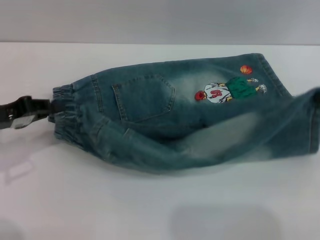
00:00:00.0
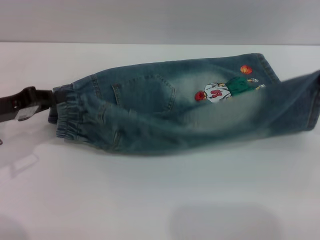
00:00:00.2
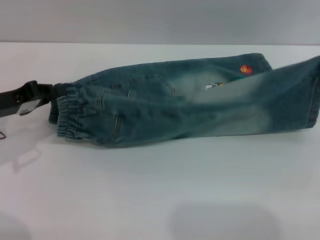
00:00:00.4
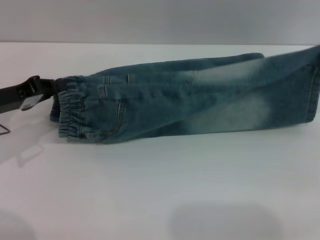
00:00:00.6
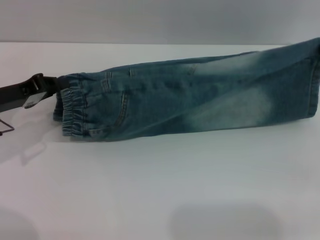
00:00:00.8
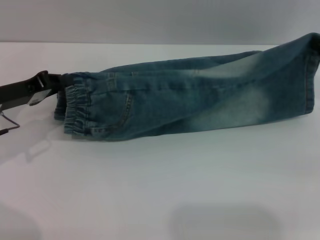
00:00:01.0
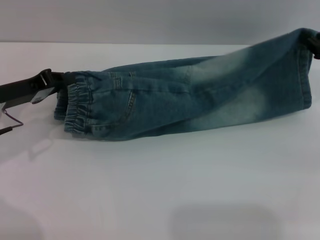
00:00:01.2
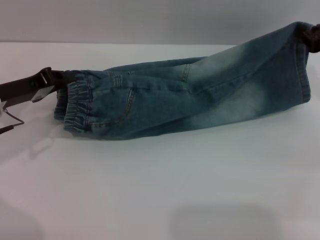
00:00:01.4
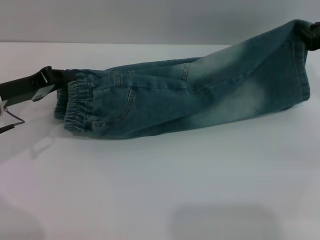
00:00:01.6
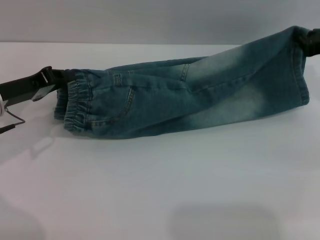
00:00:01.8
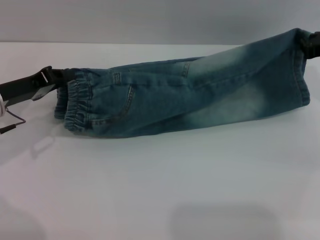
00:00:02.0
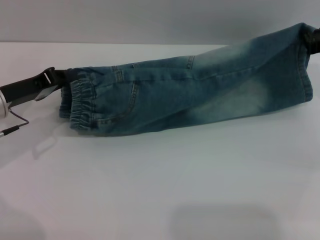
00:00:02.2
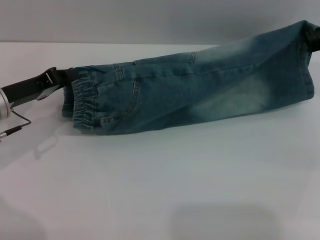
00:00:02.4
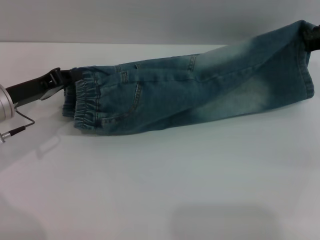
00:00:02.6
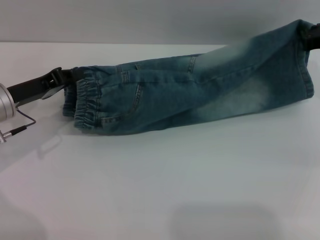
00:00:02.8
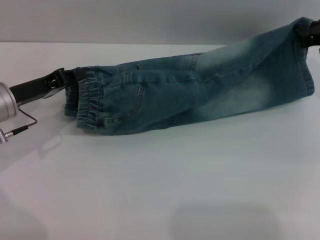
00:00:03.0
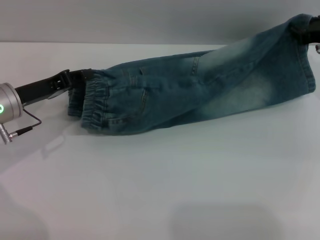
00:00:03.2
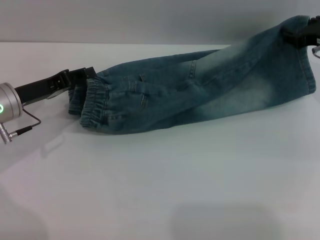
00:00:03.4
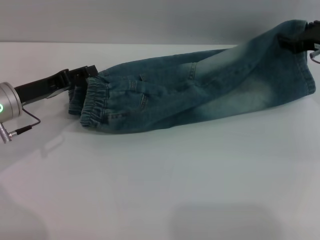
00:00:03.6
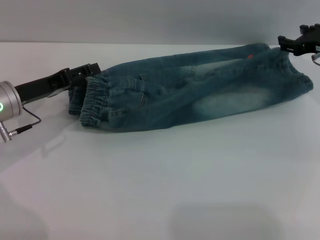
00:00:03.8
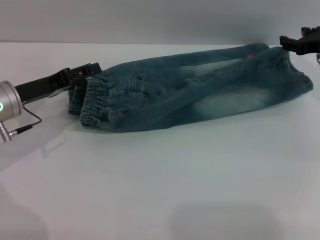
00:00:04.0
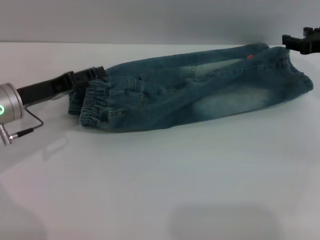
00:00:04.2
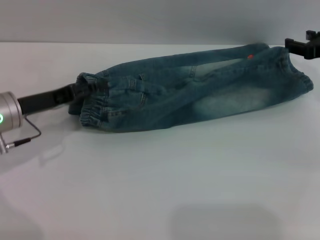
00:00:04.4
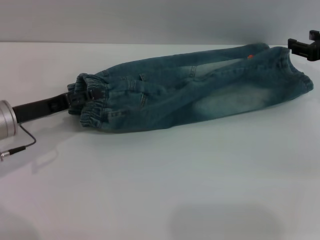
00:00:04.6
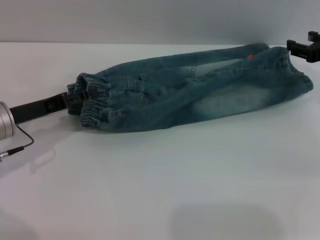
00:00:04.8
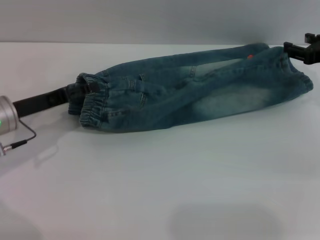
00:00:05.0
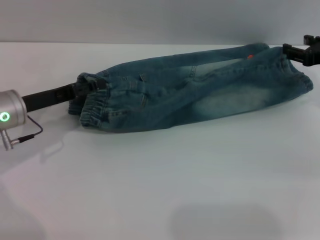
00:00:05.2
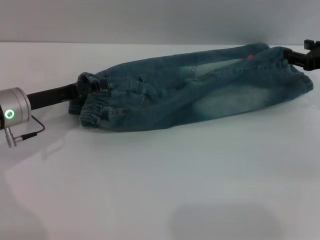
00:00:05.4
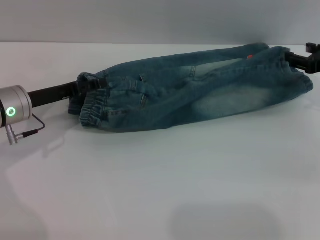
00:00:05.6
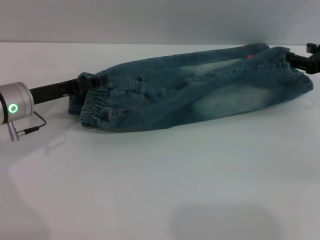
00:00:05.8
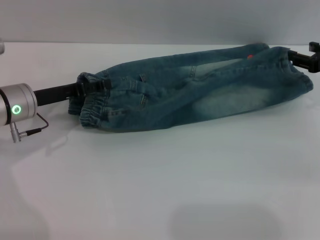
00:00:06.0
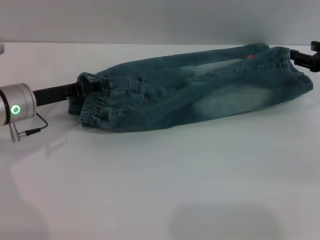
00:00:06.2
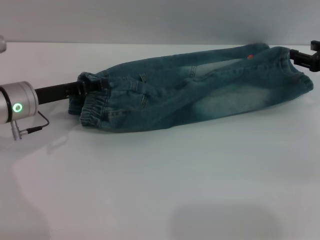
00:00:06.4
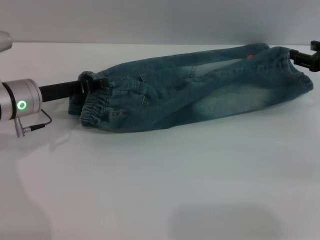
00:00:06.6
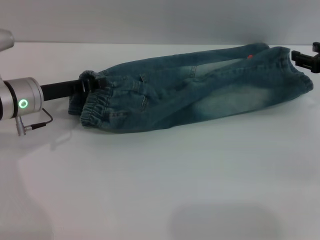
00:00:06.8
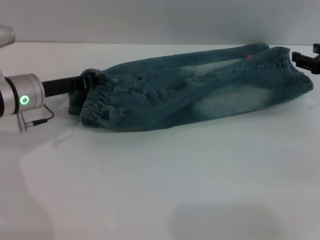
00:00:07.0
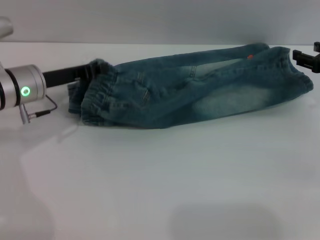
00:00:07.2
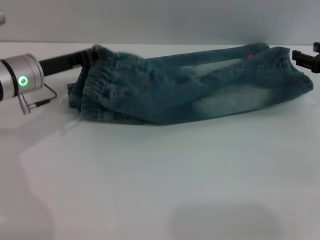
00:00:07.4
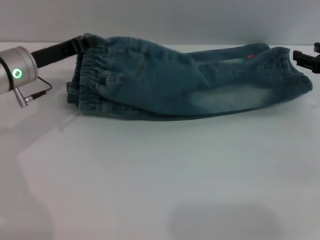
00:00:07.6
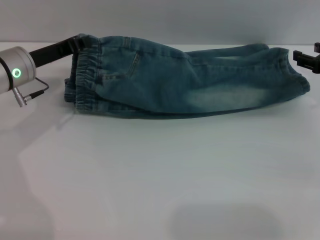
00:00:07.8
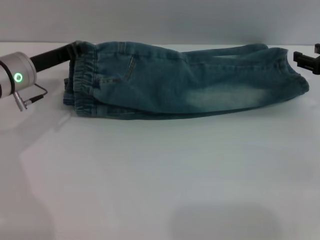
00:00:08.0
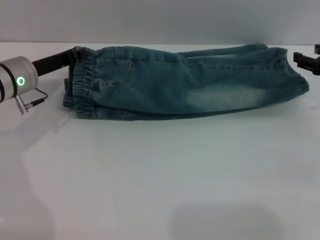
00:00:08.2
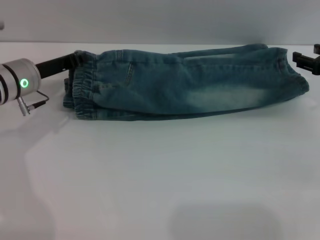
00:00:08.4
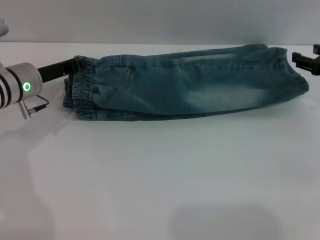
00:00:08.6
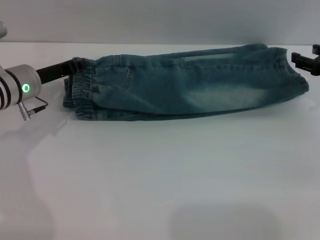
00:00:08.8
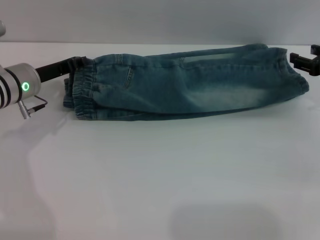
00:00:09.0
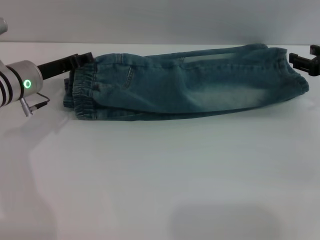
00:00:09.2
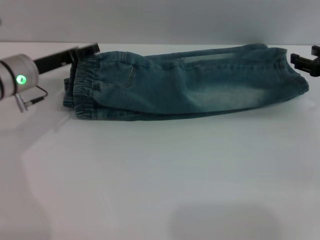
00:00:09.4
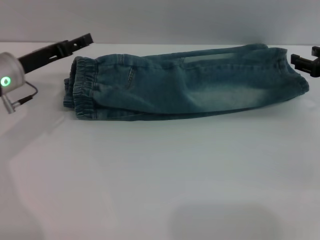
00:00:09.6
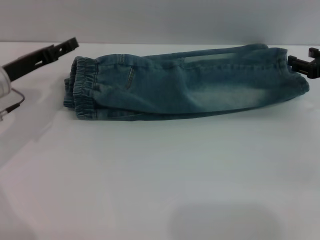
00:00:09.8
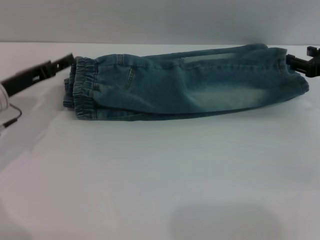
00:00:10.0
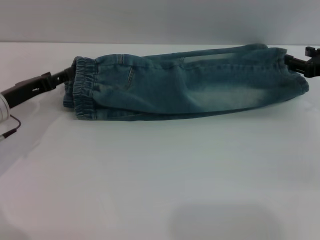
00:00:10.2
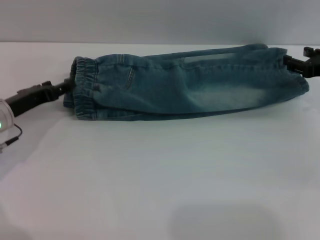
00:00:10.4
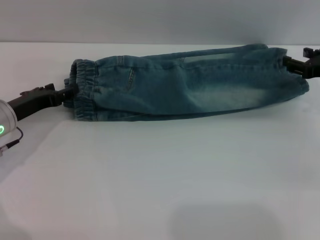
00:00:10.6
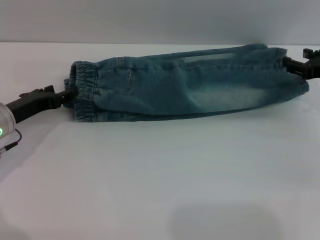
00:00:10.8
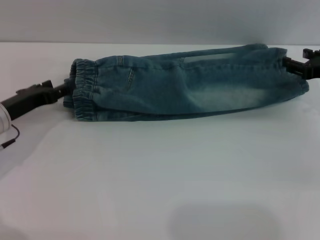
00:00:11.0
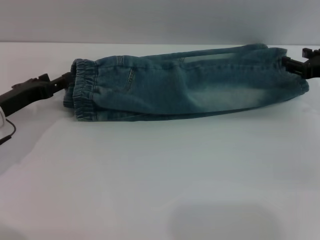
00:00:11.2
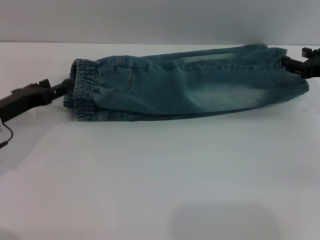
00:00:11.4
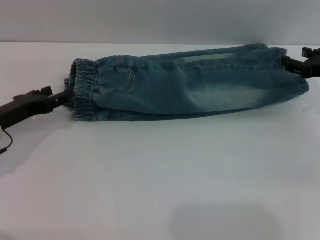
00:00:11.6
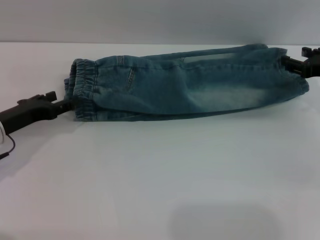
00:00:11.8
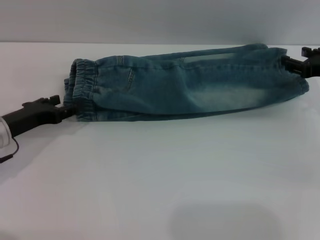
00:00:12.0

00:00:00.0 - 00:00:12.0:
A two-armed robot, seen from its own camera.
Step, 00:00:00.0 - 00:00:05.4: Fold the bottom of the pants upward with both grippers.
00:00:00.0 - 00:00:01.6: The right gripper moves forward, approximately 10 cm. The left gripper changes place by about 5 cm.
00:00:01.6 - 00:00:03.0: The grippers make only small movements.
00:00:03.0 - 00:00:04.4: The right gripper opens. Meanwhile the left gripper opens.
00:00:04.4 - 00:00:06.0: The grippers stay close to where they were, moving slightly.
00:00:06.0 - 00:00:07.6: The left gripper closes.
00:00:07.6 - 00:00:09.0: There are only small adjustments of the grippers.
00:00:09.0 - 00:00:10.4: The left gripper travels backward by about 5 cm, and opens its fingers.
00:00:10.4 - 00:00:12.0: The grippers move only a little.

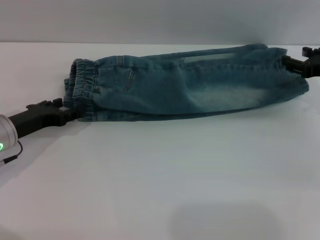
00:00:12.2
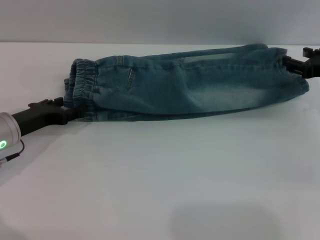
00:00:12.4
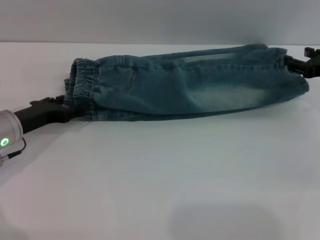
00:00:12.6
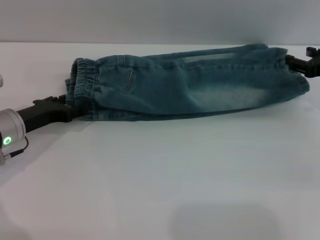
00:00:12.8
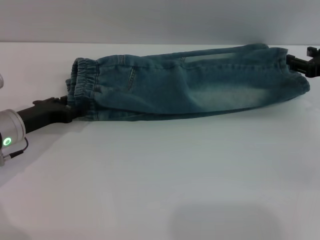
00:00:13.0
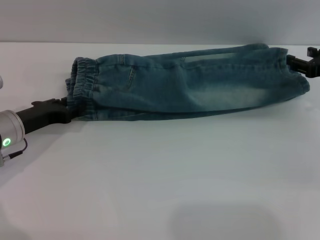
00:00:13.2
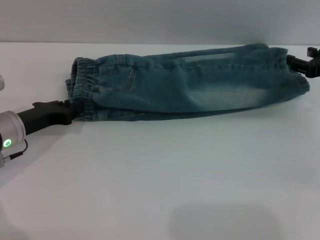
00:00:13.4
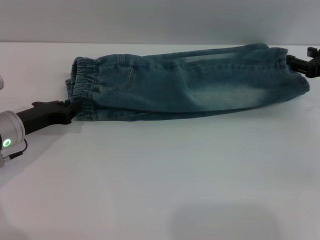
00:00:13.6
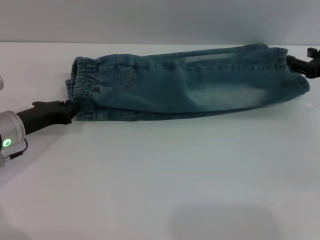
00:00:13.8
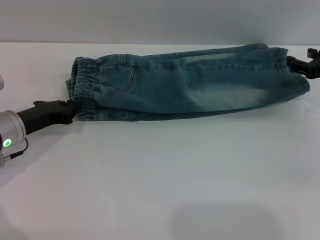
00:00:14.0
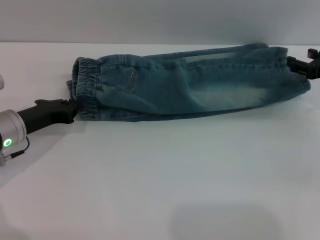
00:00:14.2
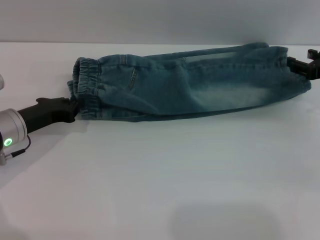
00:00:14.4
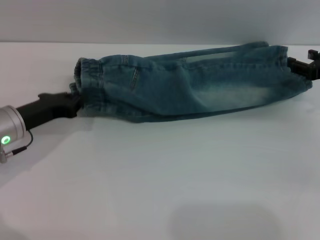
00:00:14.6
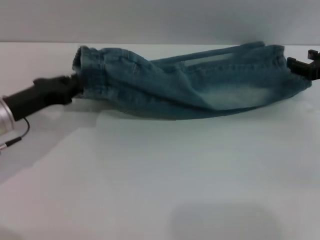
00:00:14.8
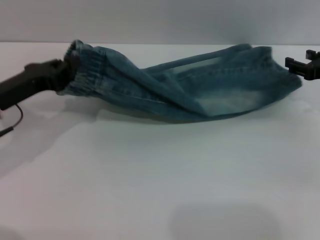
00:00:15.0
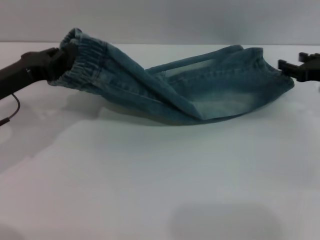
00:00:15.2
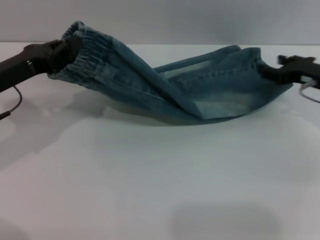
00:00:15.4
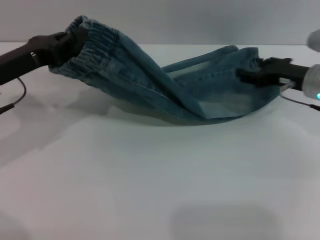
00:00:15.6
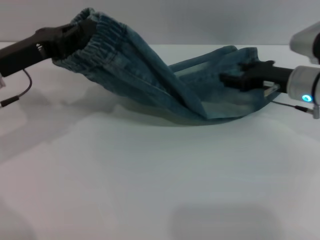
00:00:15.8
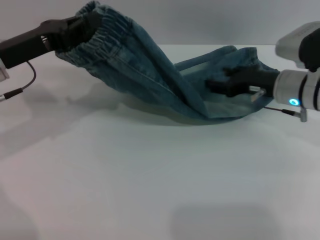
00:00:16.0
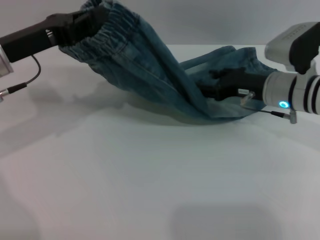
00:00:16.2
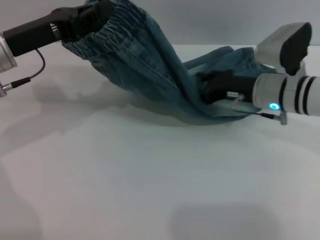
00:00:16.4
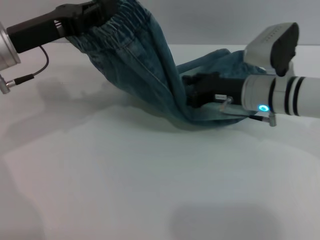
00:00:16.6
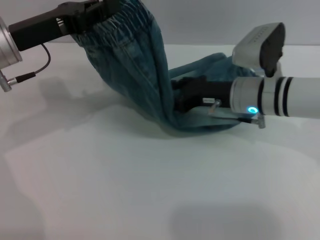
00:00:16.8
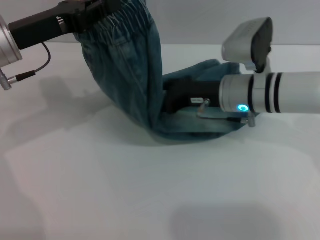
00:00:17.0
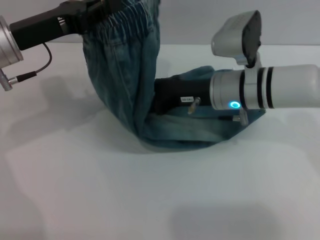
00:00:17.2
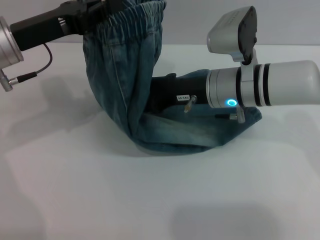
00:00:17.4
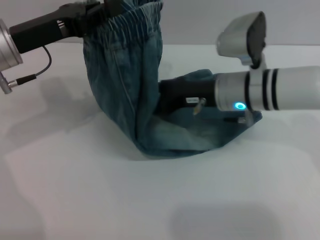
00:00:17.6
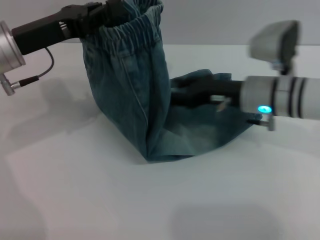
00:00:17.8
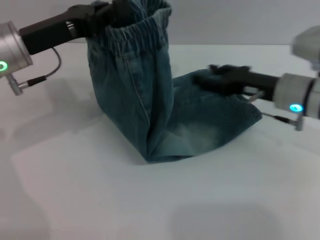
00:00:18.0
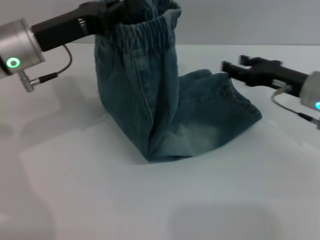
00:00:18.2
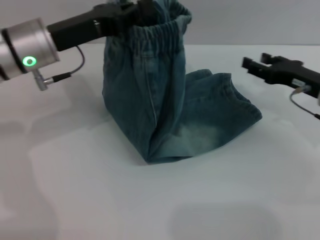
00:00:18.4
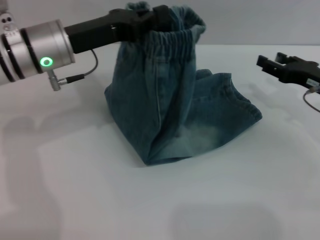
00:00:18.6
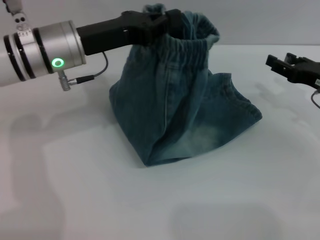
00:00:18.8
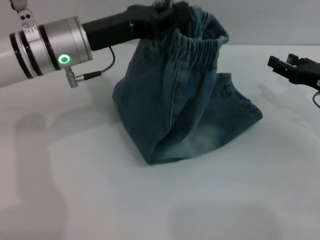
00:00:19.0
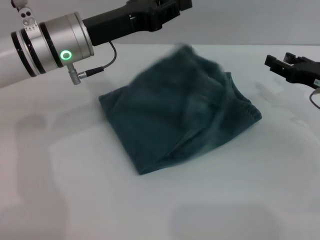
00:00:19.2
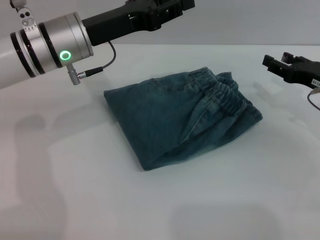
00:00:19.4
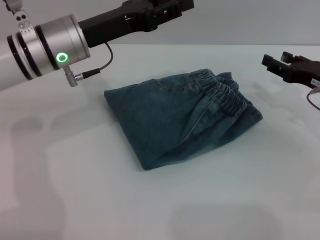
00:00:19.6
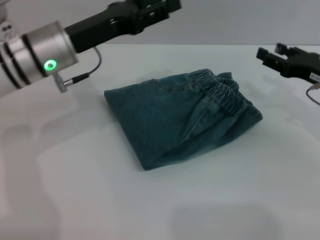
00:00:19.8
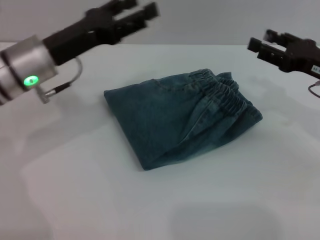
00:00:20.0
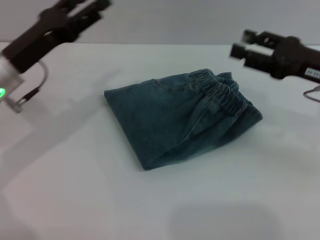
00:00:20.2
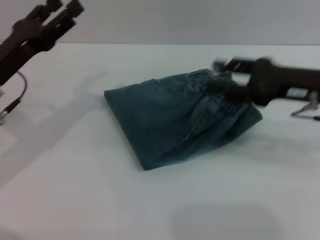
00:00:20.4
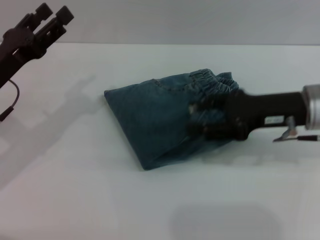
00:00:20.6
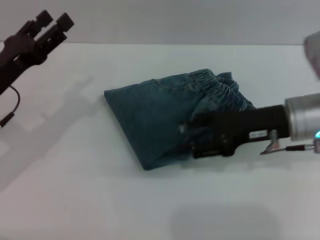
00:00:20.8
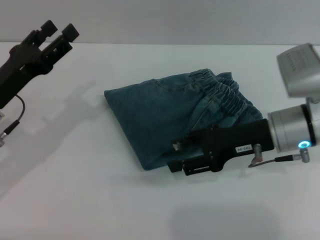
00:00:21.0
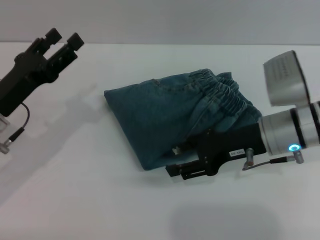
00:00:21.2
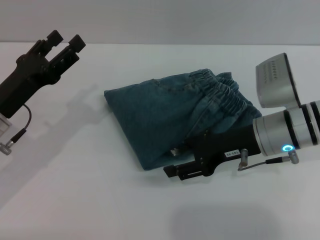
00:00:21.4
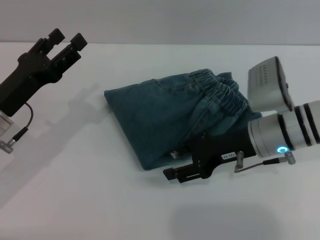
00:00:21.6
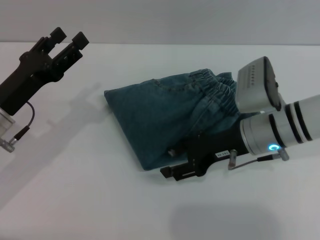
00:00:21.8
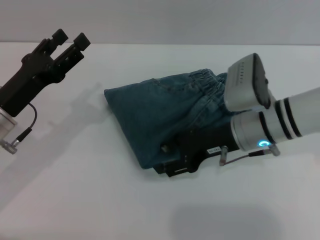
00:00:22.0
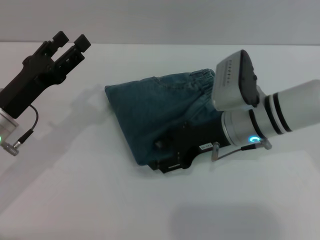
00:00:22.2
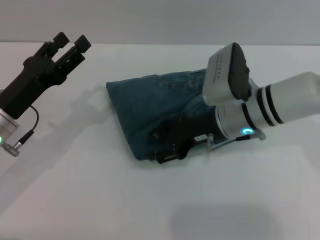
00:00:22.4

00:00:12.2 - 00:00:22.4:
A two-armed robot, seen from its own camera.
Step, 00:00:12.2 - 00:00:19.2: Fold the pants from left to right with the left gripper.
00:00:12.2 - 00:00:13.6: The left gripper closes up.
00:00:13.6 - 00:00:15.2: The left gripper is displaced upward by about 5 cm.
00:00:15.2 - 00:00:16.6: The right gripper goes about 15 cm to the left, while the left gripper goes approximately 5 cm upward.
00:00:18.0 - 00:00:19.4: The two grippers go roughly 10 cm to the right.
00:00:19.4 - 00:00:21.0: The left gripper travels to the left, backward and downward by approximately 15 cm, and opens; the right gripper moves to the left, some 10 cm.
00:00:21.0 - 00:00:22.4: The right gripper heads to the left, covering some 5 cm.
